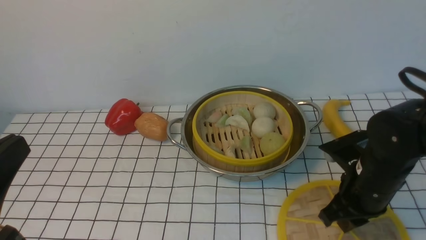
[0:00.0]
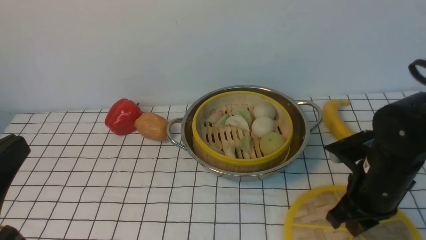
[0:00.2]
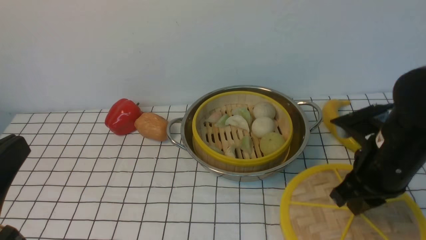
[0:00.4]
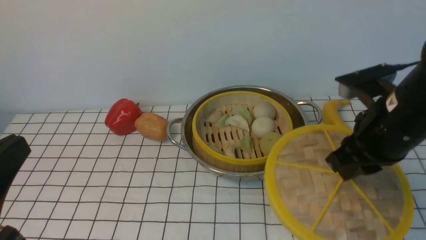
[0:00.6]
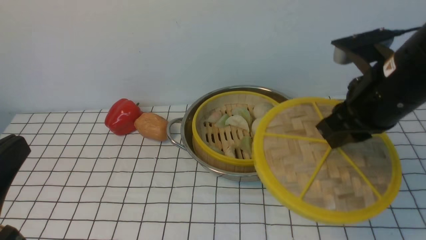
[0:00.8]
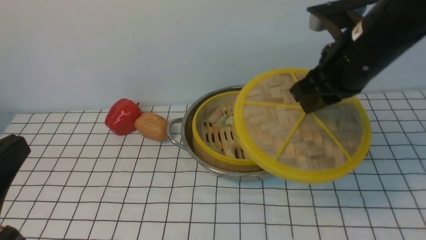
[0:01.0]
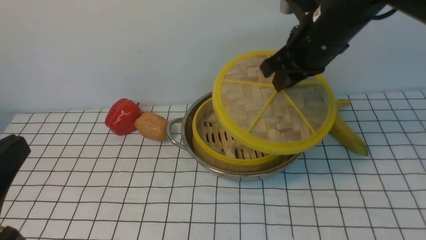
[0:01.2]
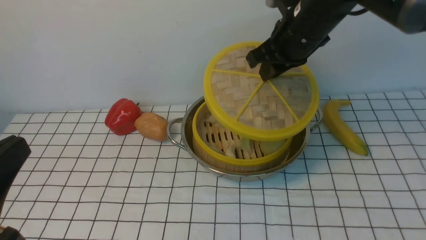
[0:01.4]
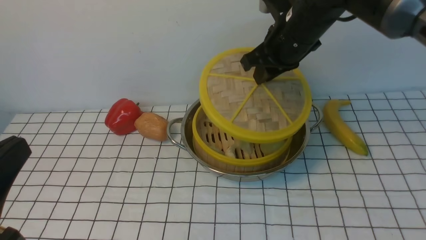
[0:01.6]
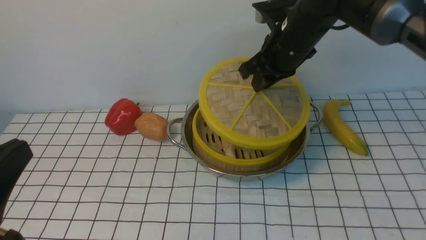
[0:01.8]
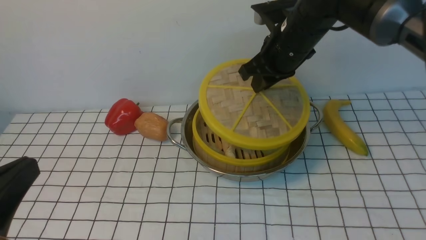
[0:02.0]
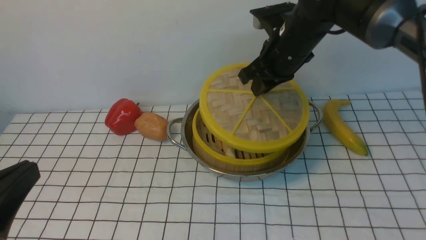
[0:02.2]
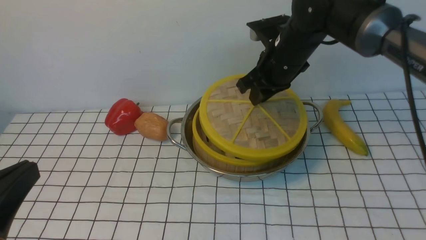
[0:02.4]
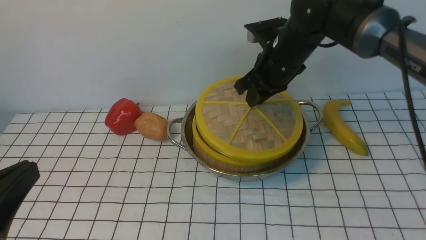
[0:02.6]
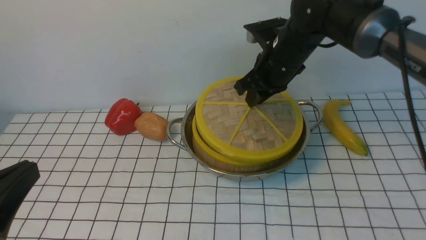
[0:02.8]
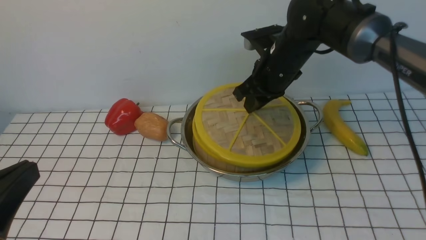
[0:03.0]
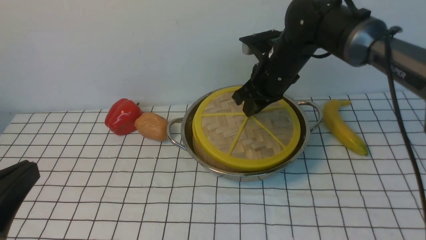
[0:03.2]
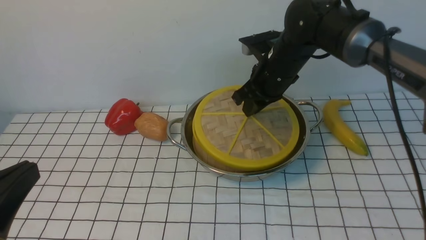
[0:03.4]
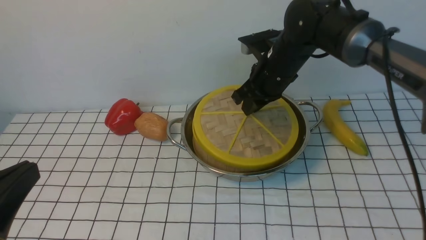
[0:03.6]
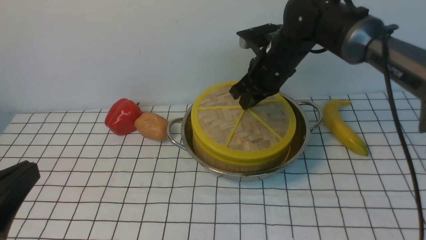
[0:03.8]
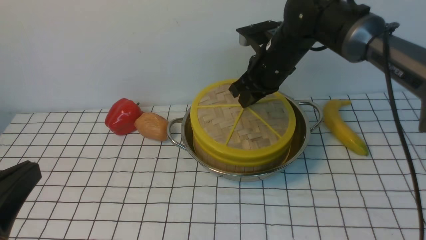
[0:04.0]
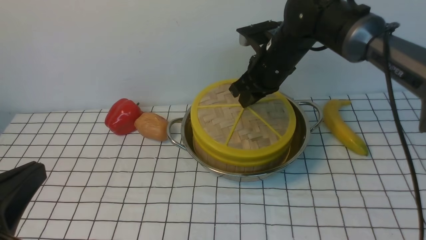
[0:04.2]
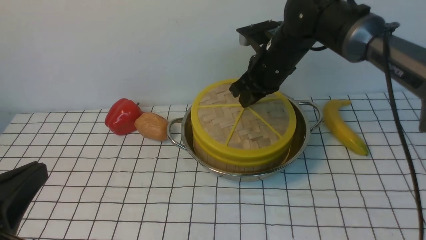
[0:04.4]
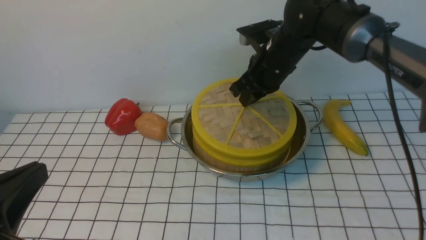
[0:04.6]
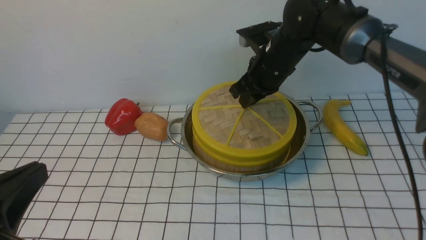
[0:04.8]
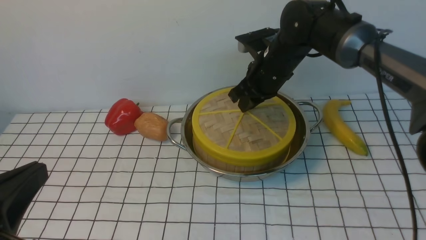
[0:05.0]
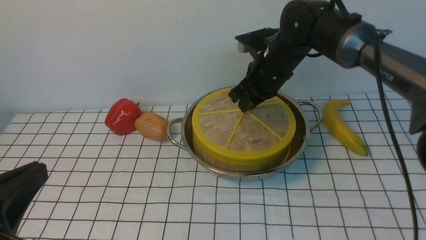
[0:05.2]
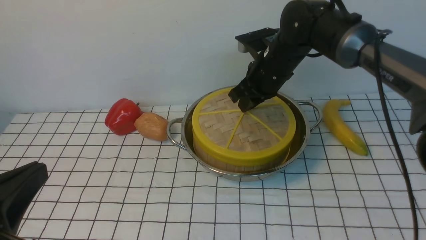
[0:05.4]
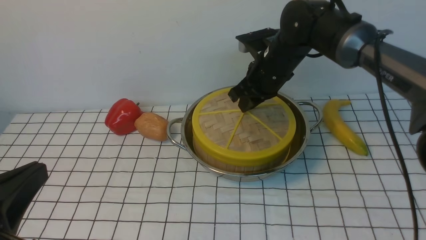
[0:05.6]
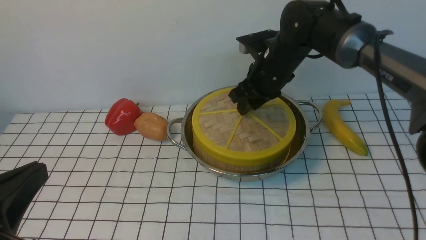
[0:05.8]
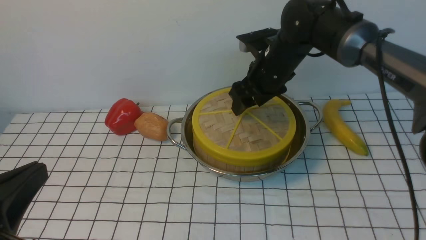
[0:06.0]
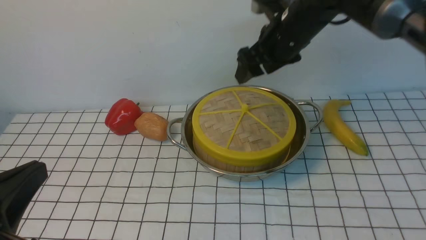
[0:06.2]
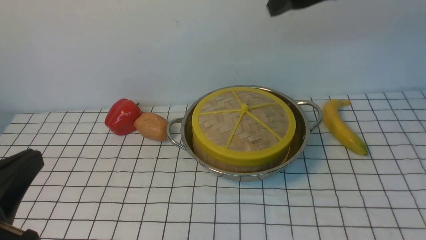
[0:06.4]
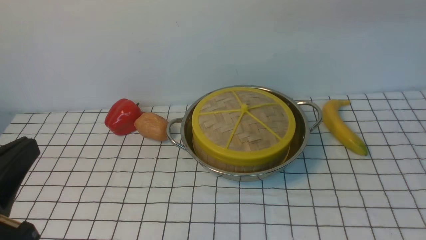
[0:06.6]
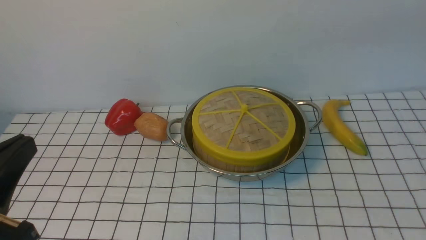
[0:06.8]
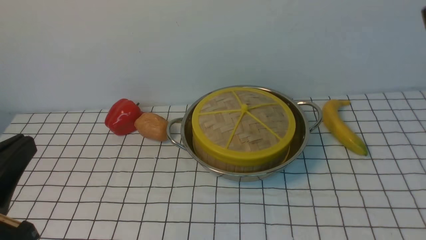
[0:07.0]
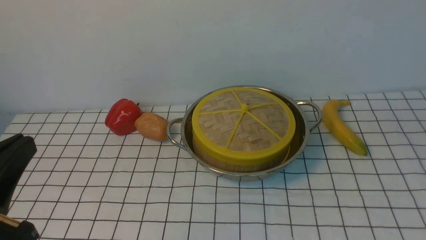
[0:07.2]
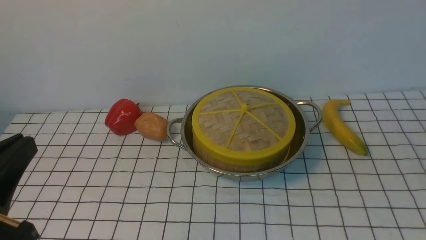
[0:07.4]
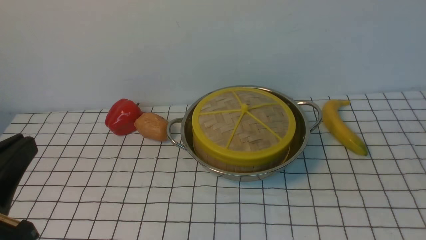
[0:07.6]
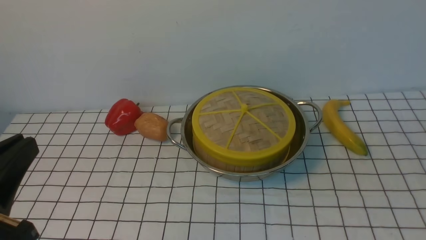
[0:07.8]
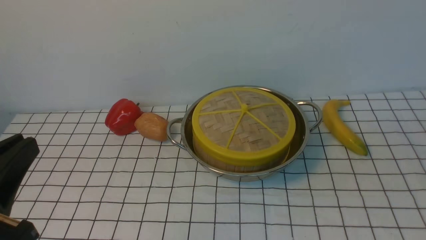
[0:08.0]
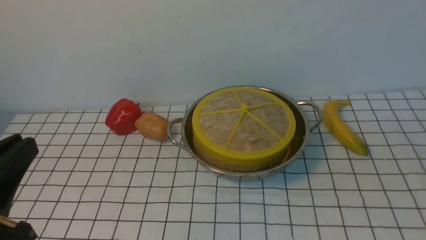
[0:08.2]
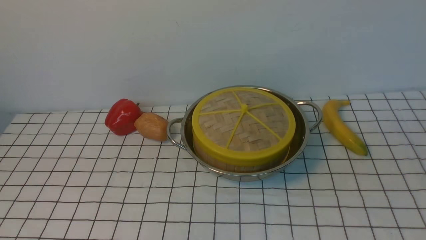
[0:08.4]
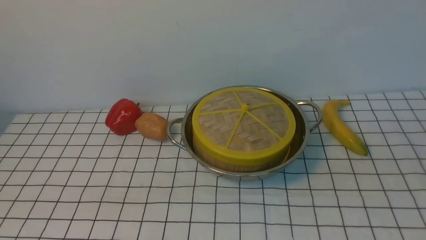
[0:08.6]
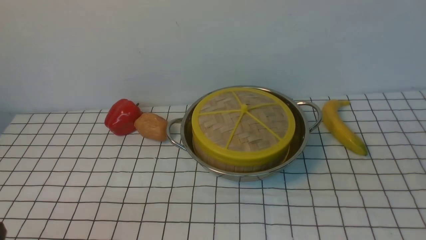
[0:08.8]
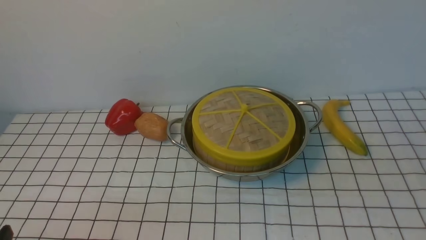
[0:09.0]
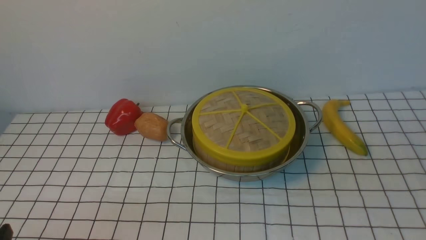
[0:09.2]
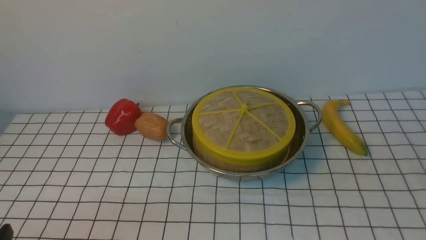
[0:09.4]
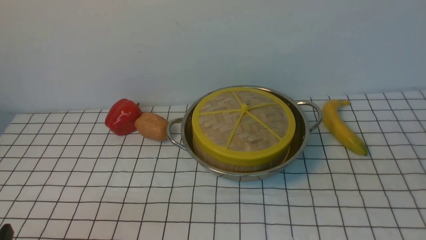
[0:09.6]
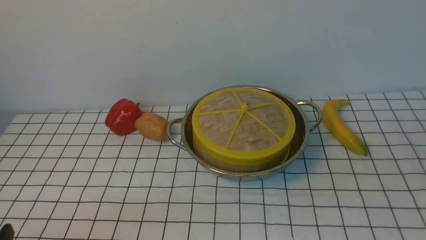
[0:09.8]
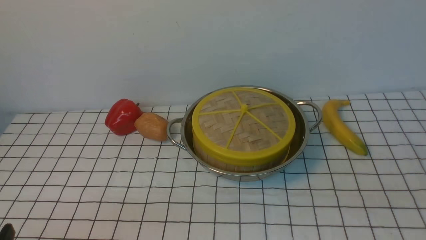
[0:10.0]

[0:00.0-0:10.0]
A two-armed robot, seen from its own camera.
Task of the whole recording: place the steamer in the pot on the white tablecloth, and put the lid on the steamer.
Step, 0:00.6 to 0:06.0: use the right arm to place the steamer lid on the steamer.
0:00.0 to 0:01.4: The right gripper travels forward, upward and to the left by some 20 cm.
0:01.4 to 0:02.8: The right gripper shifts approximately 5 cm downward.
0:02.8 to 0:04.2: The grippers make only small movements.
0:04.2 to 0:05.8: The right gripper opens its fingers.
0:05.8 to 0:07.2: The right gripper moves backward, to the right and upward, roughly 40 cm, and closes its fingers.
0:07.2 to 0:08.6: The left gripper heads downward, covering roughly 5 cm.

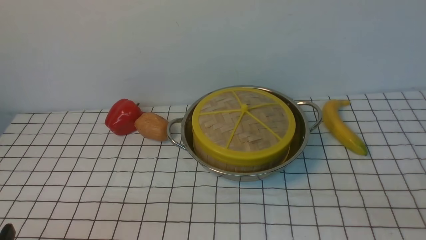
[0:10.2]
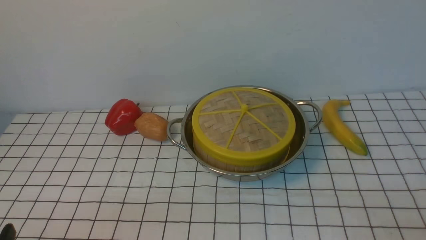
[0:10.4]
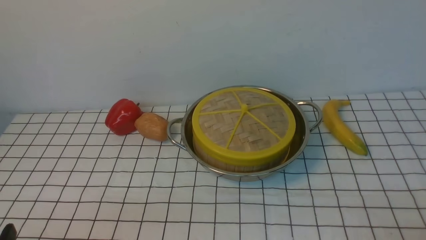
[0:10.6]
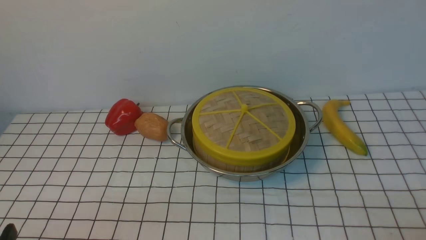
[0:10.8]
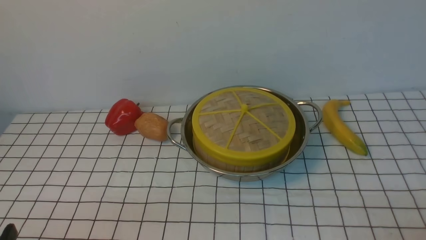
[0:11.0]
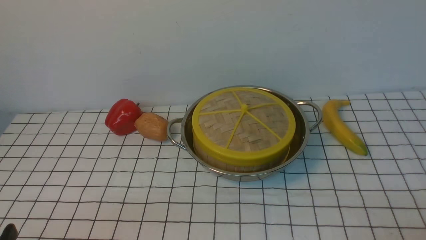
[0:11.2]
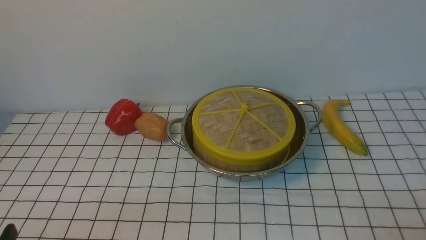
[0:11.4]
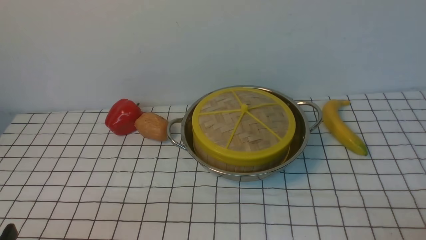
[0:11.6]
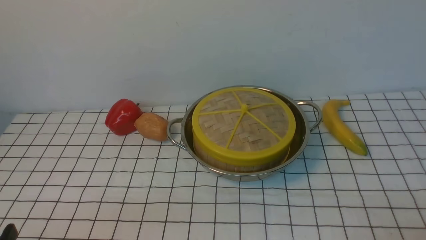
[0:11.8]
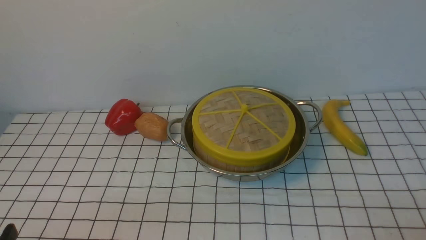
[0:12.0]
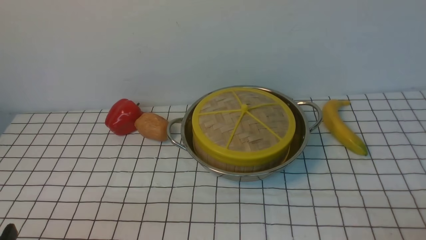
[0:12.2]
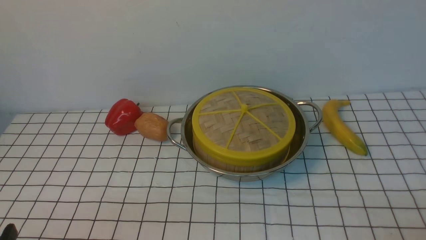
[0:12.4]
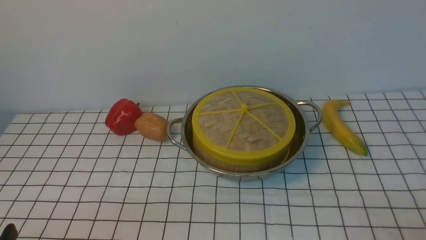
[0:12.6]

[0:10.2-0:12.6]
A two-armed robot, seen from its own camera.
Task of the whole recording: place the steamer in the pot on the white tablecloth, and put the lid on the steamer.
0:11.4 to 0:12.6: Both grippers stay about where they are.

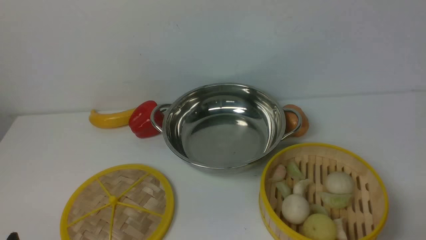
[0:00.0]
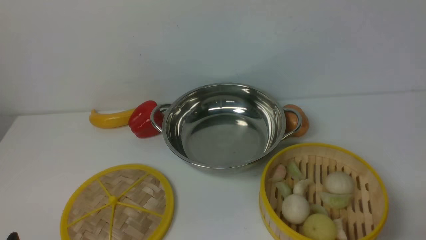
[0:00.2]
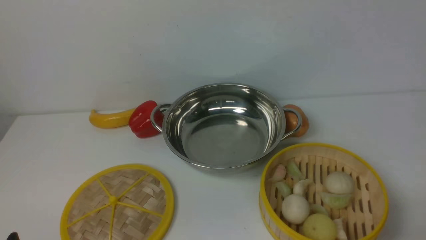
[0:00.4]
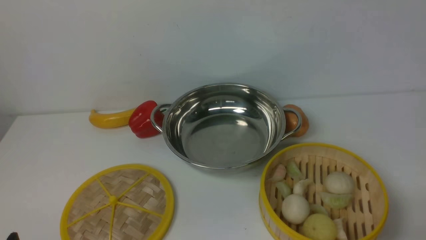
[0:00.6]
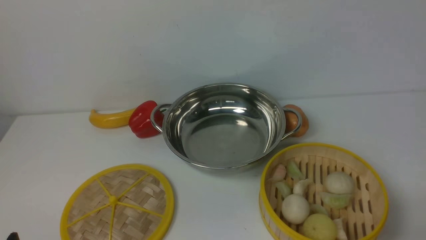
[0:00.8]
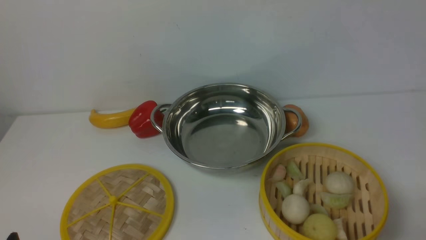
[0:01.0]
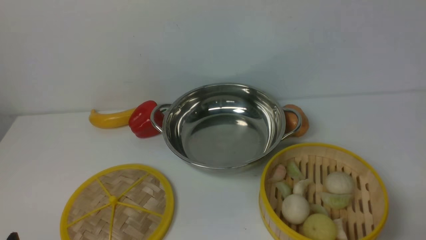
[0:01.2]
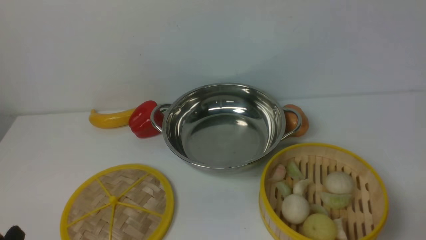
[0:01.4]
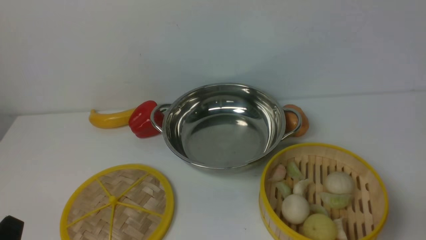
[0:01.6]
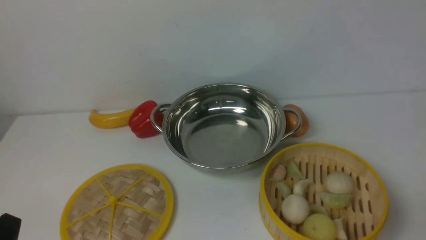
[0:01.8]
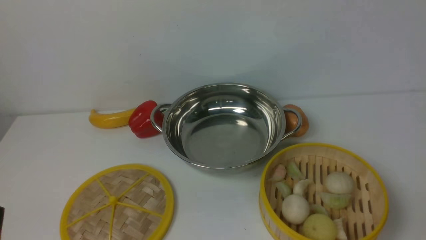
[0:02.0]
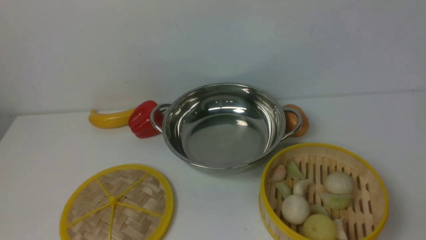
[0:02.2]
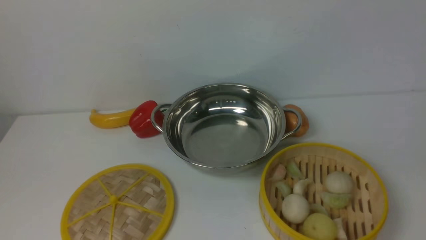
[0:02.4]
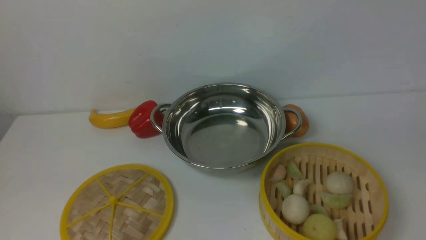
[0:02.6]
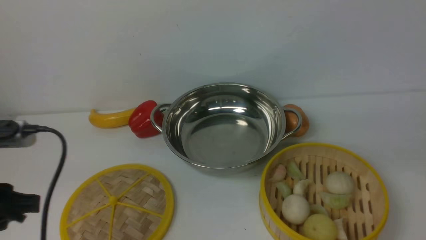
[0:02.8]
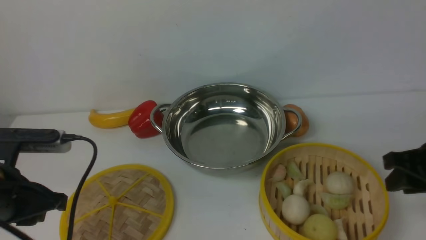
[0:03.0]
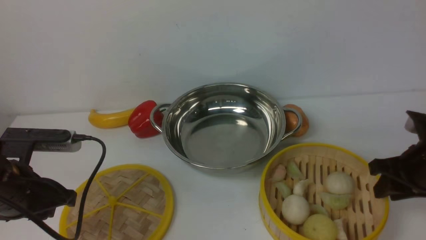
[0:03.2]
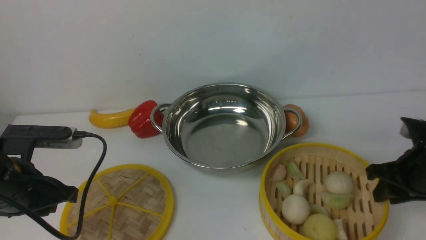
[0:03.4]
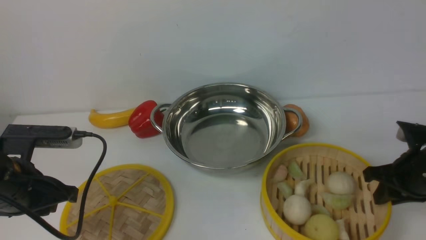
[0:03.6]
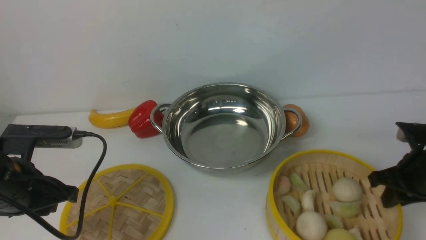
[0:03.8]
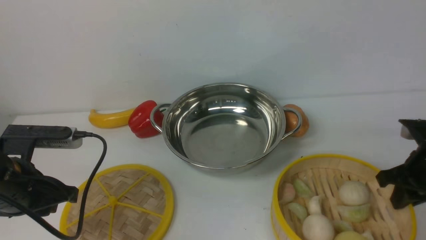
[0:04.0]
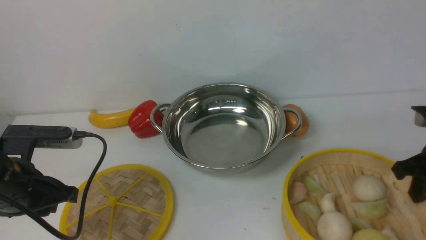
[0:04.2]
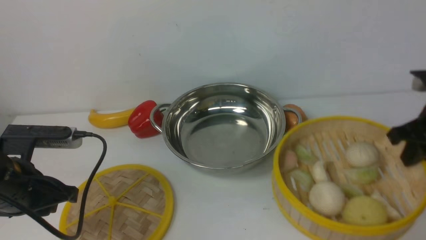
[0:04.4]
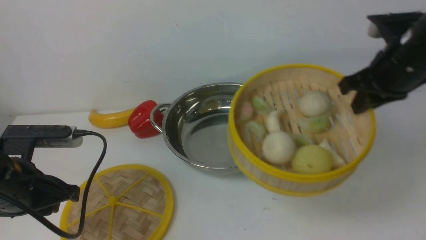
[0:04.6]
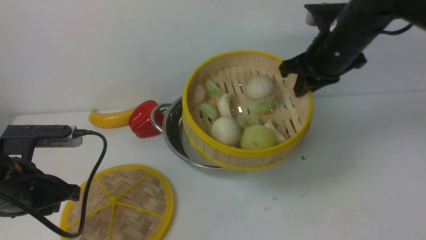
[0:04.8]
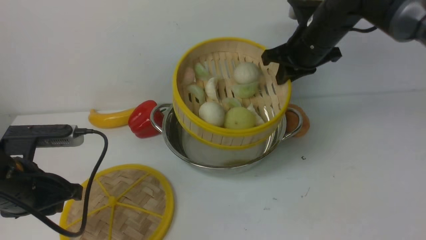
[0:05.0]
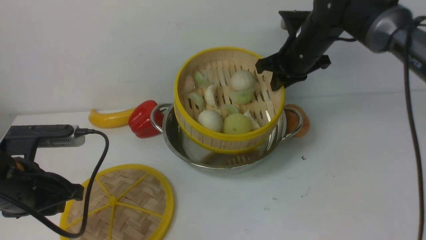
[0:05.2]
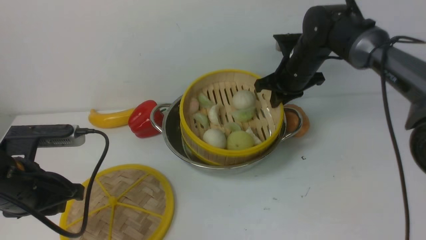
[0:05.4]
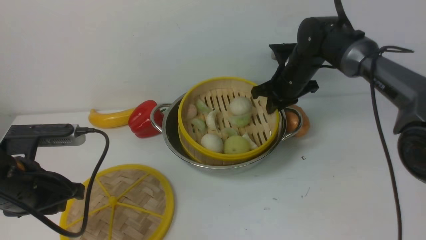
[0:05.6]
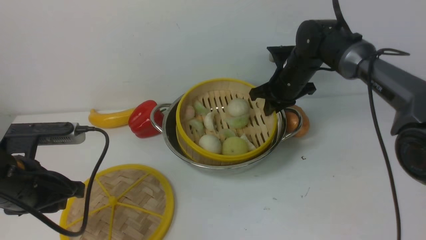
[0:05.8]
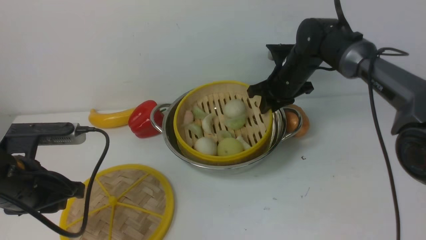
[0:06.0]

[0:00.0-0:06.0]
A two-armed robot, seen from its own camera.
Task of the whole recording: place the steamer in the pot on the white table, and put the lid on the steamer.
Step, 0:00.0 to 0:04.6: use the right arm to lift the steamer closest to it.
0:01.6 to 0:03.0: The two grippers go roughly 15 cm forward.
0:03.0 to 0:04.4: The right gripper heads forward, covering roughly 5 cm, and closes up.
0:04.4 to 0:06.0: The right gripper moves forward, to the left and downward, roughly 25 cm.
